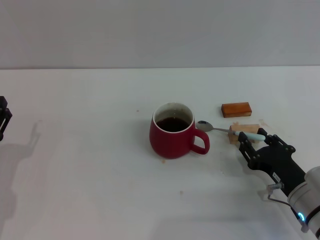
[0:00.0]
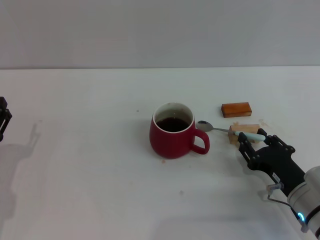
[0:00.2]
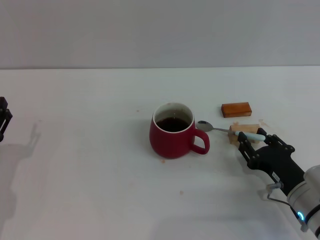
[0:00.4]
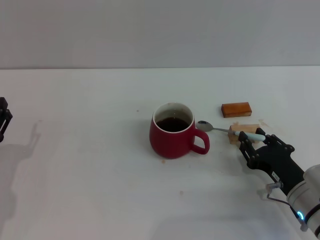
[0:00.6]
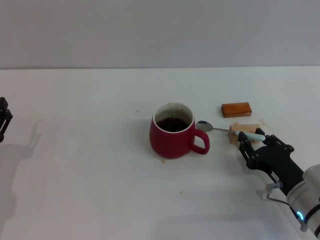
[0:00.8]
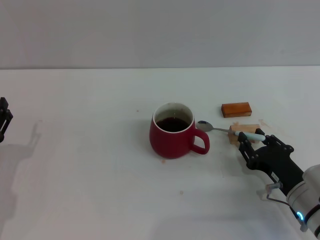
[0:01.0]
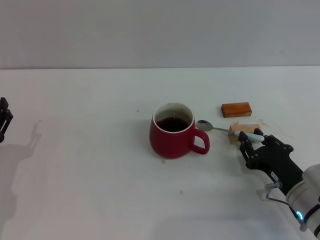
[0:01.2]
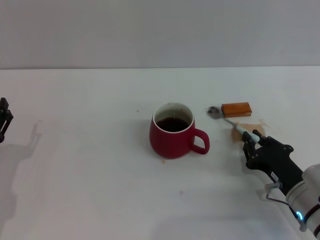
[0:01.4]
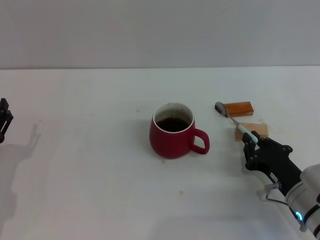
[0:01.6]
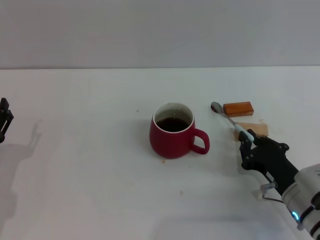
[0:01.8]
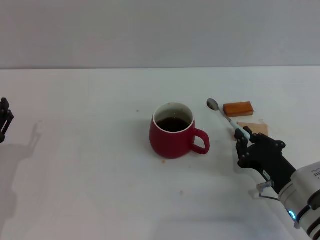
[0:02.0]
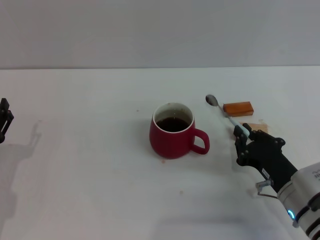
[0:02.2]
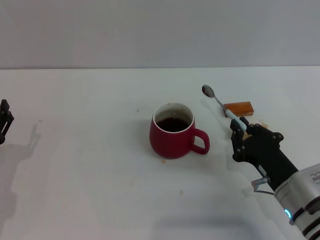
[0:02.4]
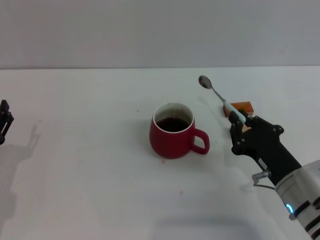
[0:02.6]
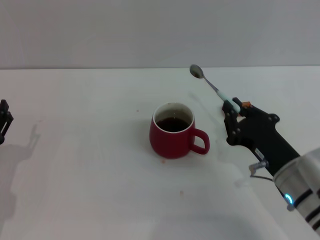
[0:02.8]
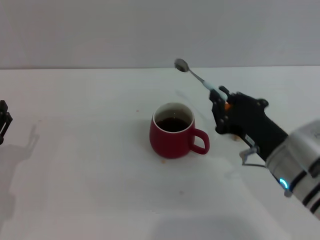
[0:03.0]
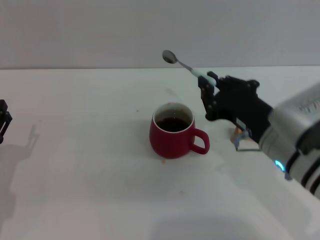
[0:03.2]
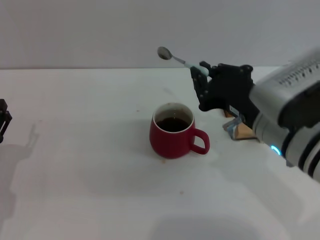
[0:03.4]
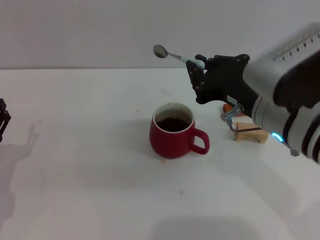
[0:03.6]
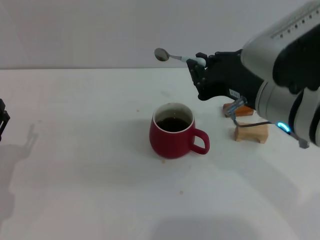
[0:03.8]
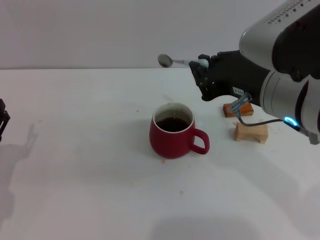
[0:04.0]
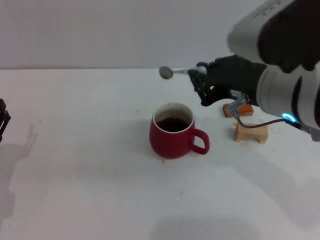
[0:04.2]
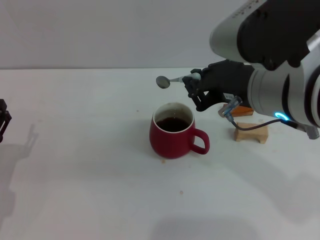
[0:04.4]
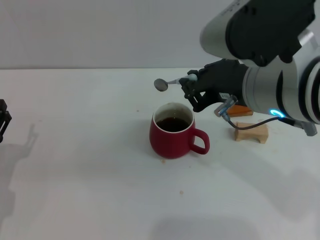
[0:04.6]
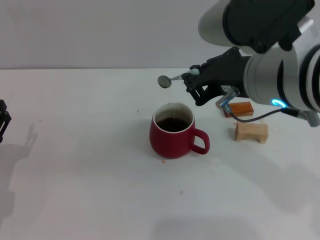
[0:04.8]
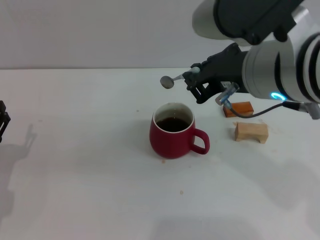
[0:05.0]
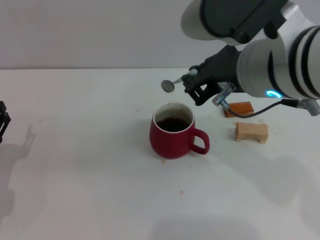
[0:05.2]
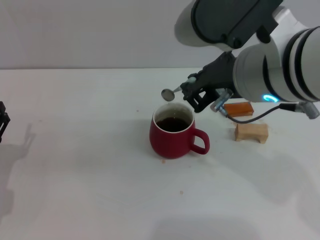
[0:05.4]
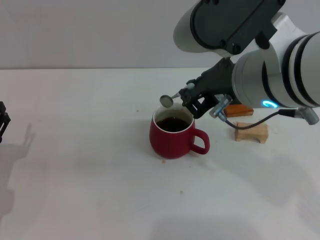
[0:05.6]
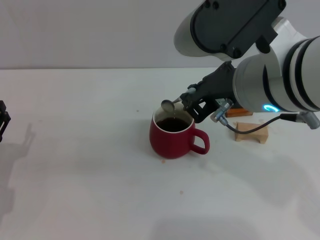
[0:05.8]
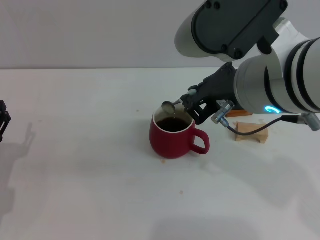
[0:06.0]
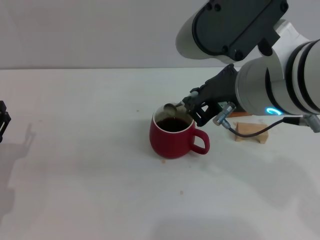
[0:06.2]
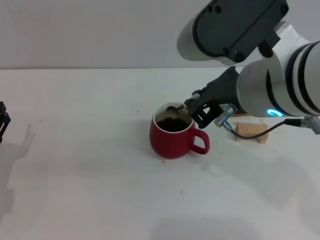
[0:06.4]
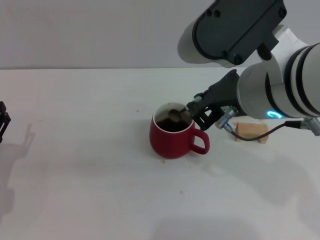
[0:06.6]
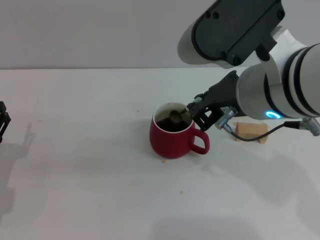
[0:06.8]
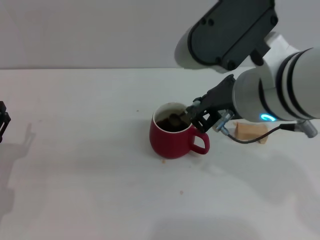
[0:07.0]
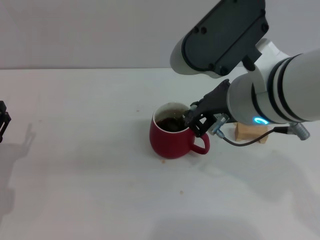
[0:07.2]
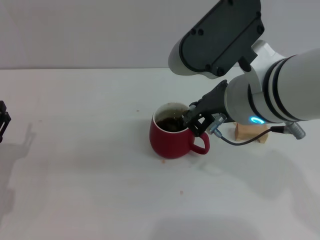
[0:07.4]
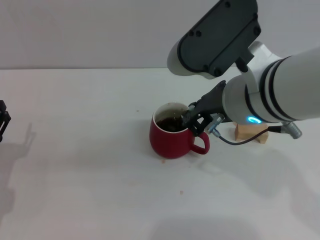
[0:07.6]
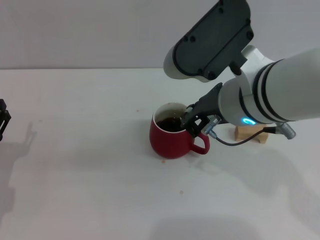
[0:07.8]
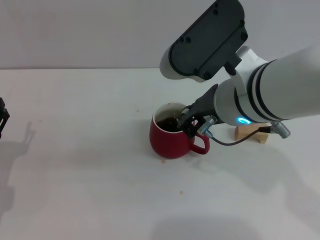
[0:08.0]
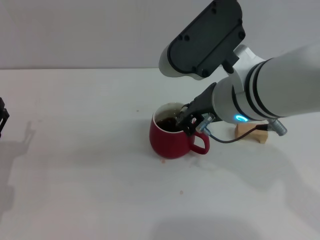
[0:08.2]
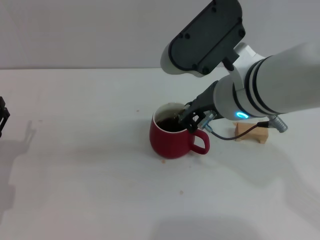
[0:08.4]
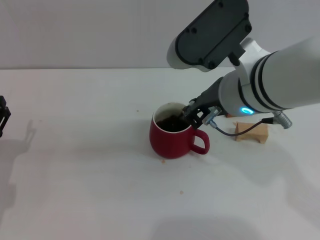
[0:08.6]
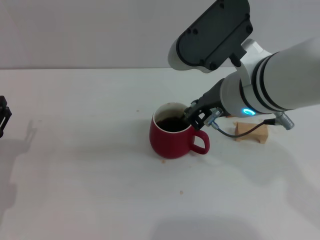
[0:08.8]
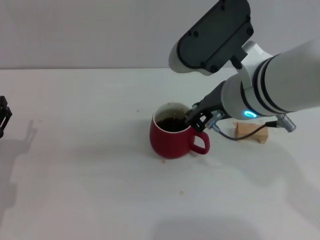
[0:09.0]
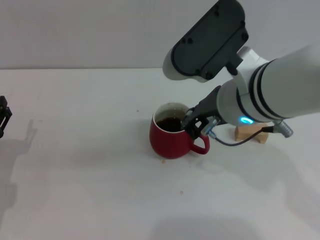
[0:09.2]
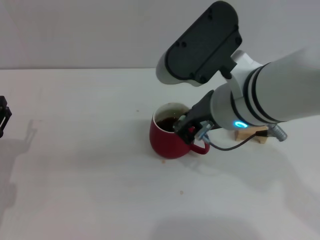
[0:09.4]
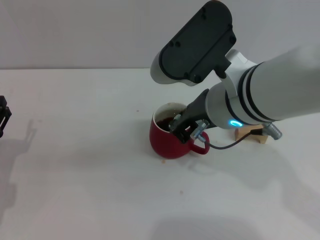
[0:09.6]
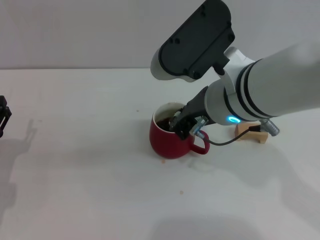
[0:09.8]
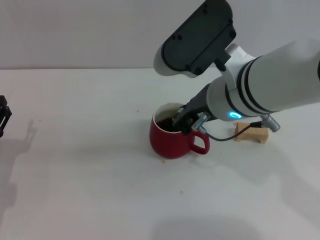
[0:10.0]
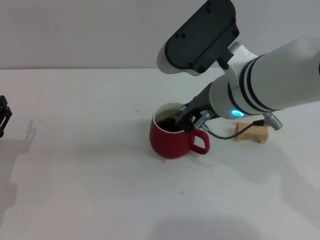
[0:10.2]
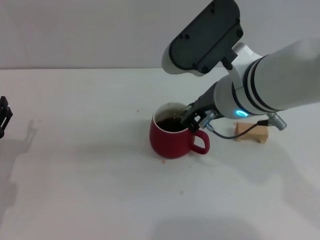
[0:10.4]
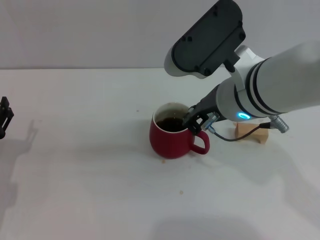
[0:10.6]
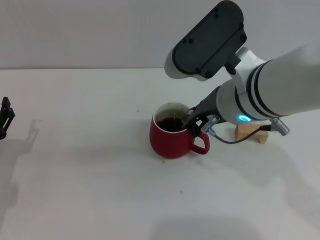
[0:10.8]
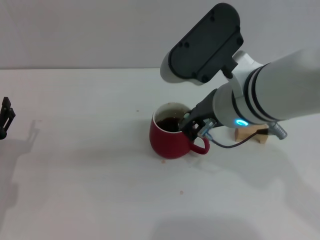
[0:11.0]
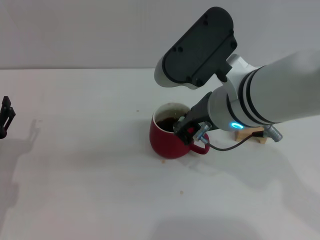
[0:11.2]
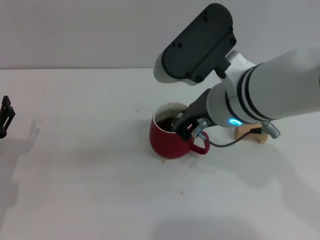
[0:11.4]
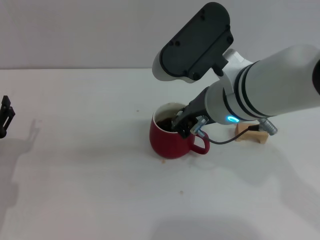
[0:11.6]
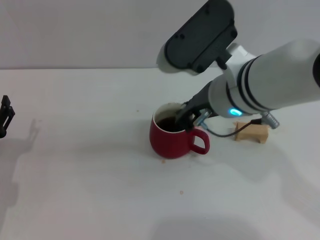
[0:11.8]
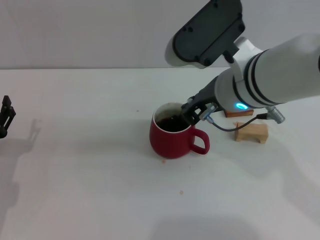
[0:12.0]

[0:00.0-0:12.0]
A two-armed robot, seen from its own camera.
Task of the whole recording: Move the red cup to the center, lift the blue spoon, stir it three times in the cup, and put the spoon into the cup.
Step, 0:00.0 to 0:02.4: Pick up the spoon with the right gripper.
0:00.0 to 0:01.6: The right gripper closes.
0:01.6 to 0:03.0: The right gripper shifts some 10 cm upward and to the left.
0:03.0 to 0:04.4: The right gripper shifts roughly 15 cm upward.
0:04.4 to 0:09.0: The grippers move only a little.
0:09.0 to 0:12.0: The grippers move only a little.

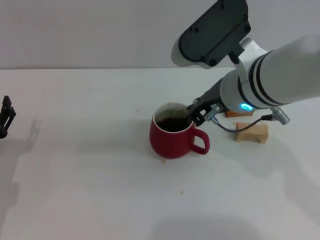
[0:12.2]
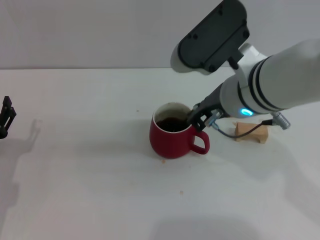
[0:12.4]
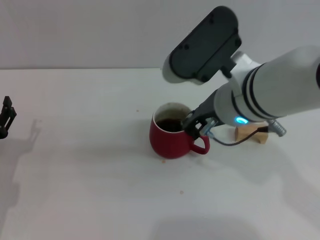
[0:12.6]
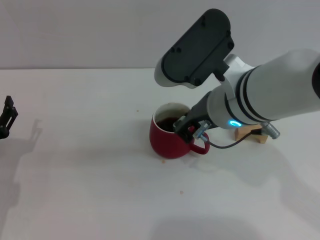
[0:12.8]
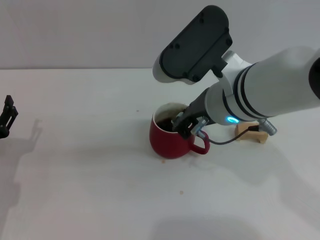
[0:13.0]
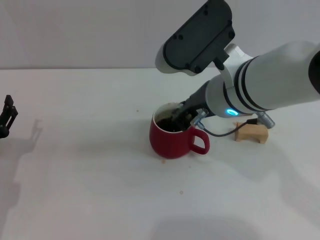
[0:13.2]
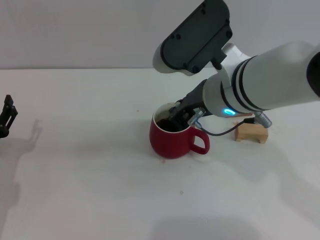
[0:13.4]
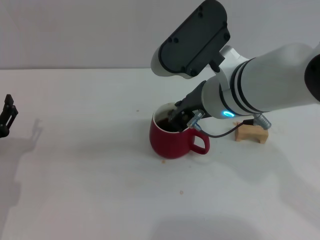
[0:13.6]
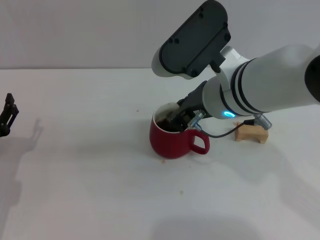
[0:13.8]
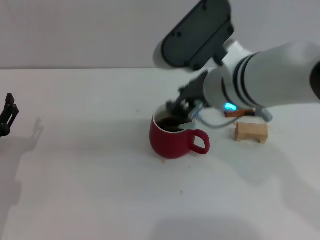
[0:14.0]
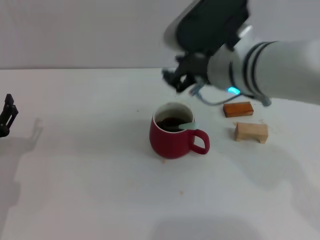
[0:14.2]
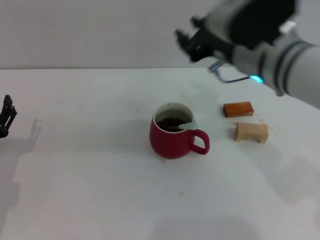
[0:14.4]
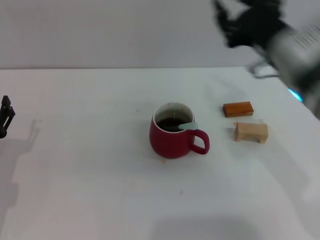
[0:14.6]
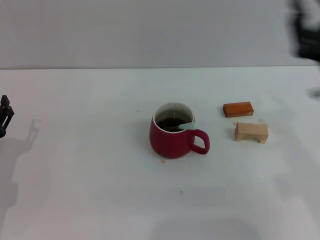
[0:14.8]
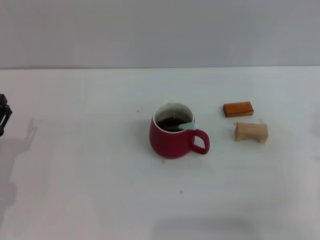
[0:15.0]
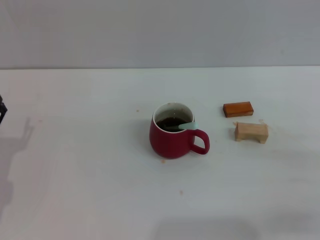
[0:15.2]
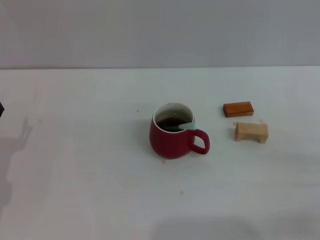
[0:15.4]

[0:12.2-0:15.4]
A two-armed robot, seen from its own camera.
Task of the whole recording: Move the red cup to the center, lift the blue spoon, stir it three times in the cup, and put the spoon into the cup.
Step, 0:12.2 to 0:14.2: Stir the coffee in the cup with the right gripper.
0:12.2 to 0:13.8: There are only small adjustments of the grippers.
0:13.8 to 0:15.4: The right gripper travels to the right, downward and backward by roughly 30 cm, and opens its fingers.

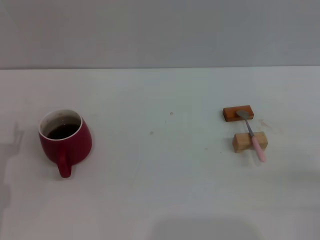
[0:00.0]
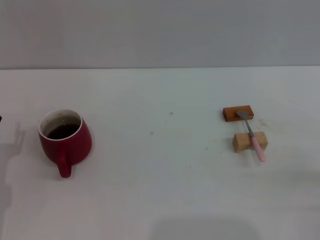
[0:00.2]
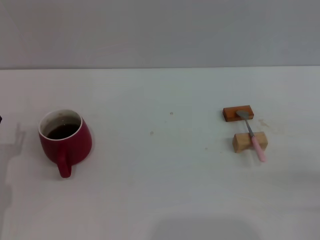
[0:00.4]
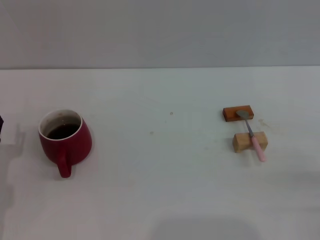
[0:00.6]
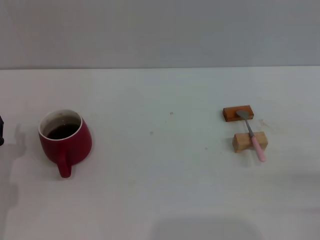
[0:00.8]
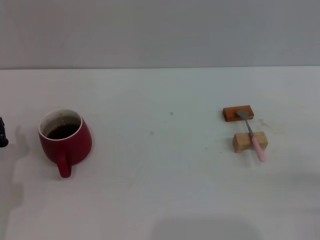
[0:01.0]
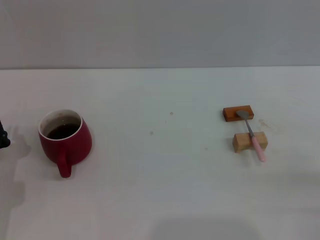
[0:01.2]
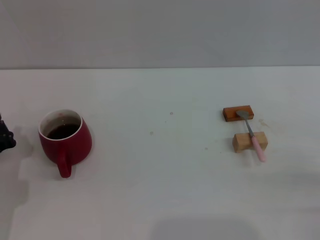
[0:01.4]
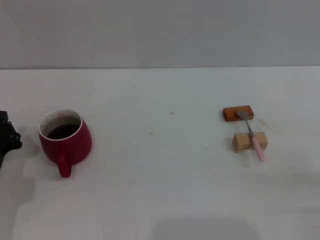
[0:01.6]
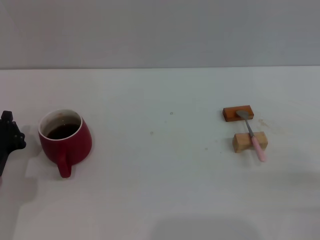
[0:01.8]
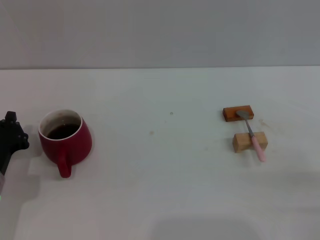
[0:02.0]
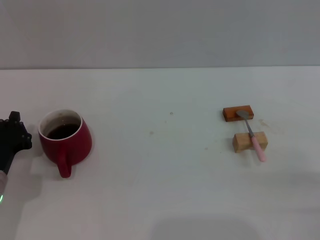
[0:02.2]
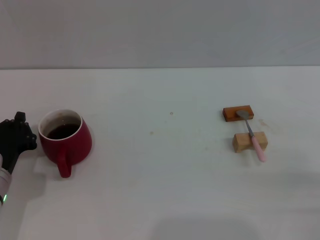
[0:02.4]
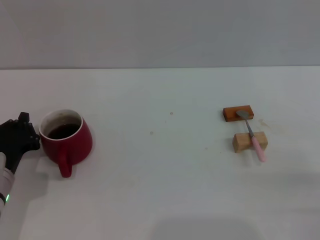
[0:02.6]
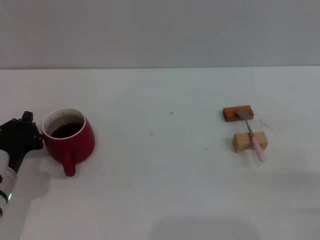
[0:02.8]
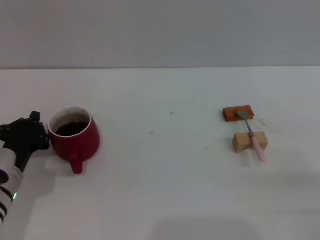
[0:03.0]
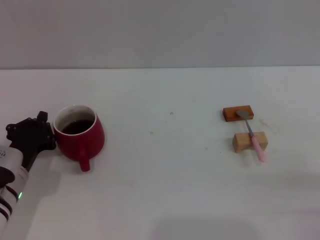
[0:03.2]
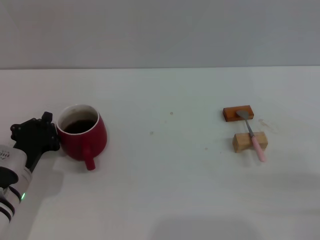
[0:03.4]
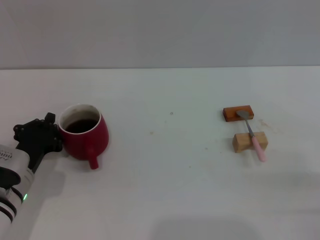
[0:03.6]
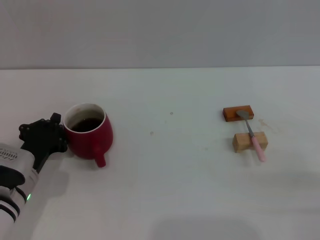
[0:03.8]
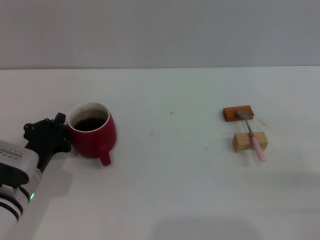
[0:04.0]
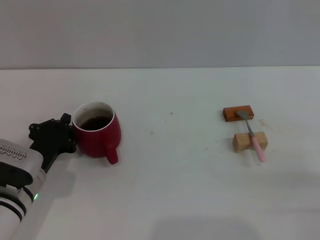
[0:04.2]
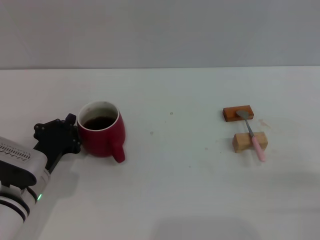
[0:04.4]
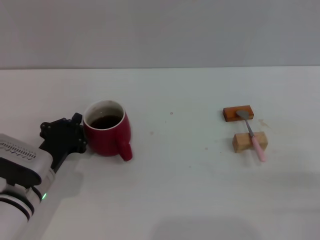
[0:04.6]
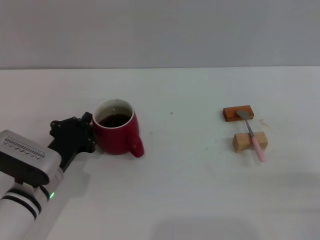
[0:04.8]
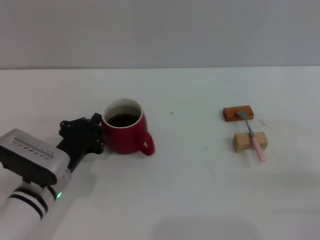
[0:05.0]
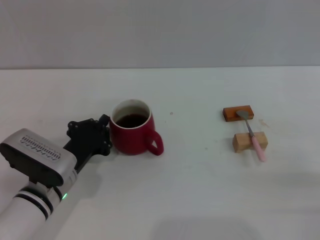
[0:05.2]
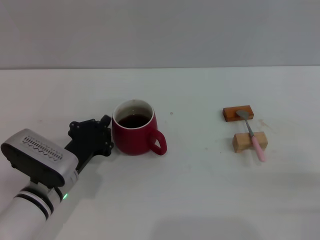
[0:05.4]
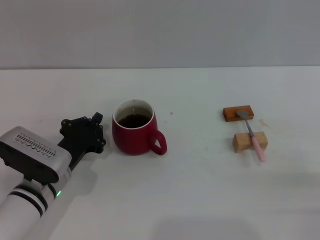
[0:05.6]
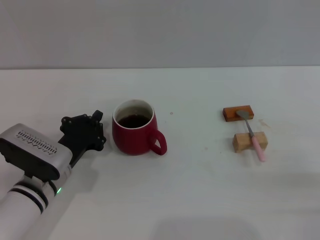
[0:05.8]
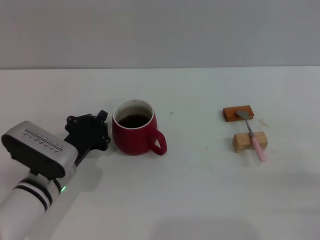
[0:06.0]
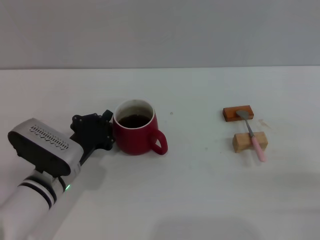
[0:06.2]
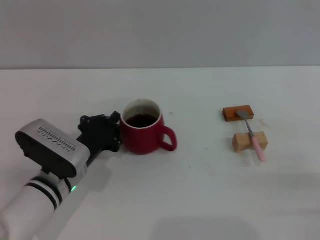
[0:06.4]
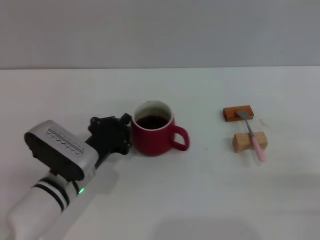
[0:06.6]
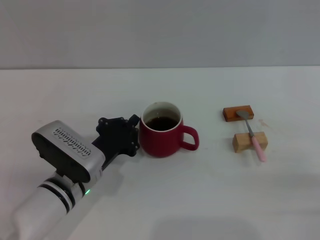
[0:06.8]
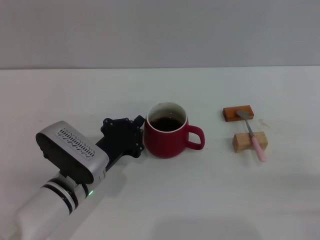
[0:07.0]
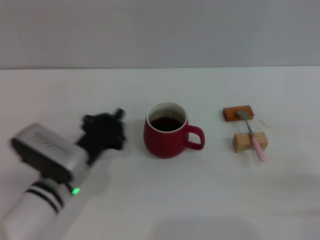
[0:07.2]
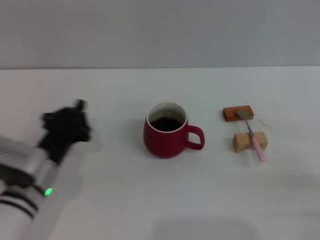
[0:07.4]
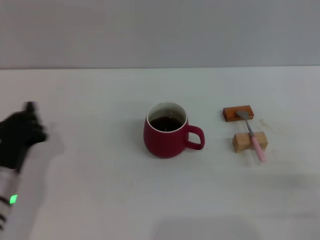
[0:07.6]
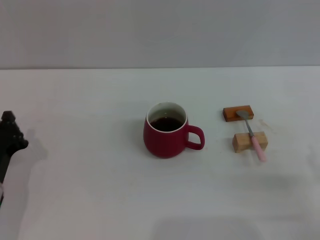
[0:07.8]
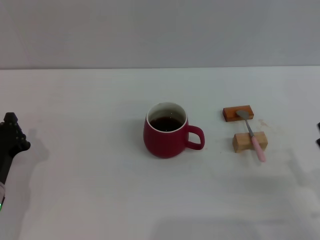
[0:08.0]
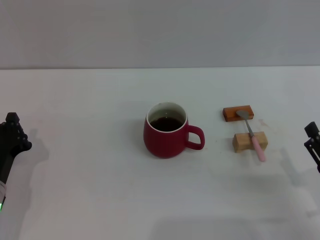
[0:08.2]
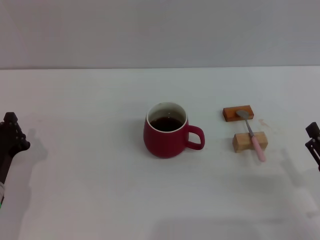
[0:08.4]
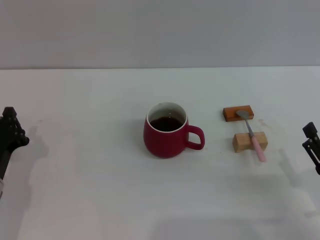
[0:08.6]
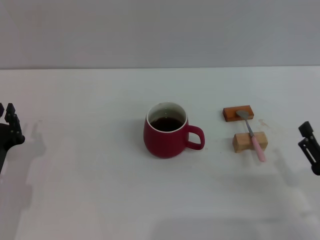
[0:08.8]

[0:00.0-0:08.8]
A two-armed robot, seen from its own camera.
Task of the whole recording: Move the red cup to the center, lift the pink spoon, stir it three times in the cup, and put the spoon into the cup.
Step, 0:00.0 to 0:07.2: Move the cup with coffee to the center of view with the left gripper.
0:01.4 to 0:03.0: The grippers move only a little.
0:03.0 to 0:04.4: The grippers stay close to where they were, moving slightly.
0:04.4 to 0:05.8: The grippers move only a little.
0:05.8 to 0:07.4: There are only small adjustments of the grippers.
0:07.4 to 0:08.8: The grippers both shift to the left by approximately 5 cm.
